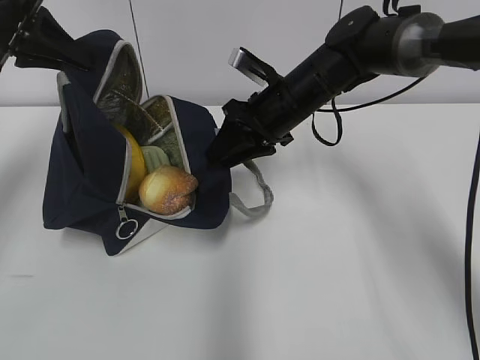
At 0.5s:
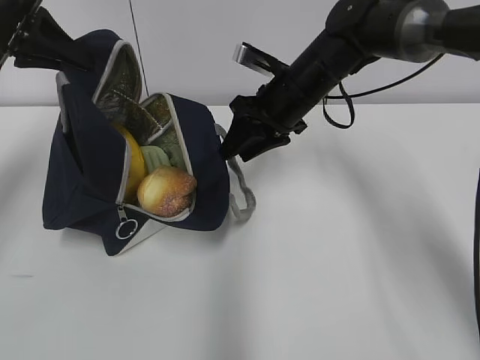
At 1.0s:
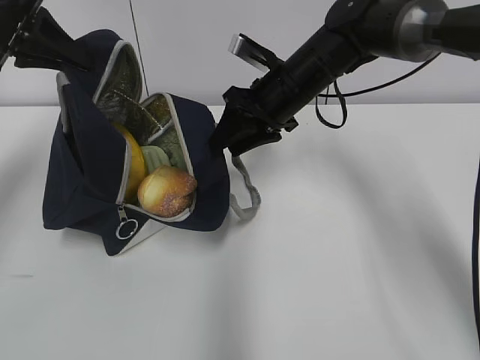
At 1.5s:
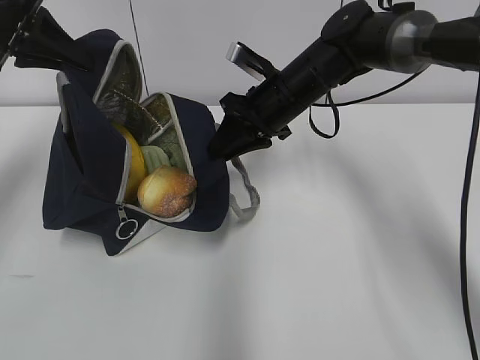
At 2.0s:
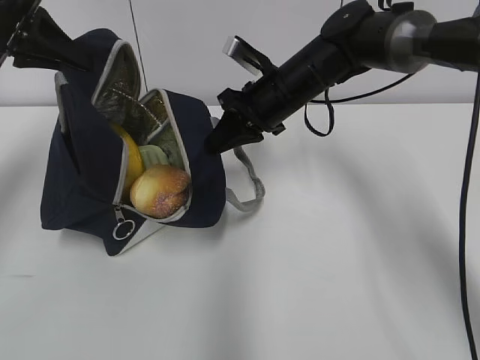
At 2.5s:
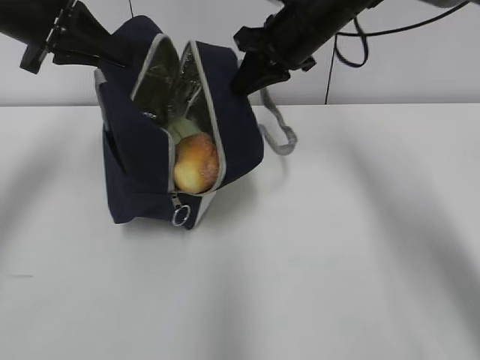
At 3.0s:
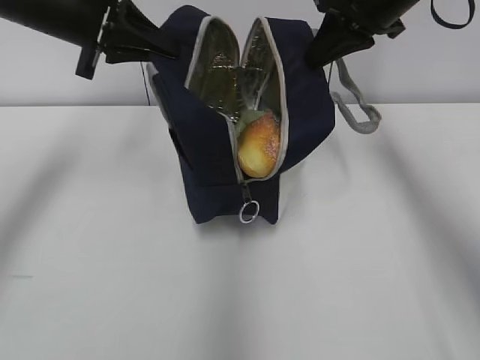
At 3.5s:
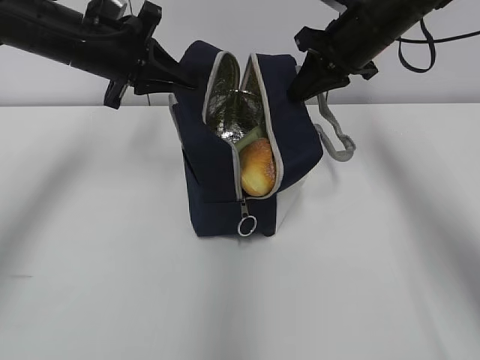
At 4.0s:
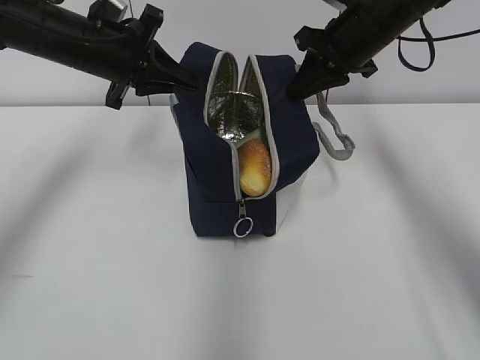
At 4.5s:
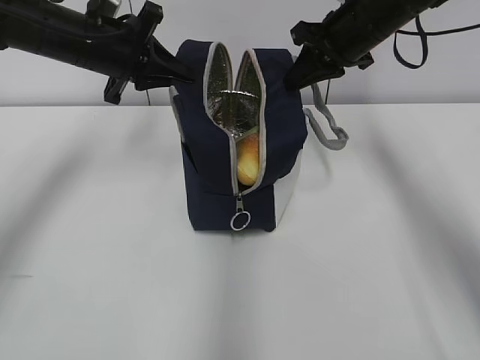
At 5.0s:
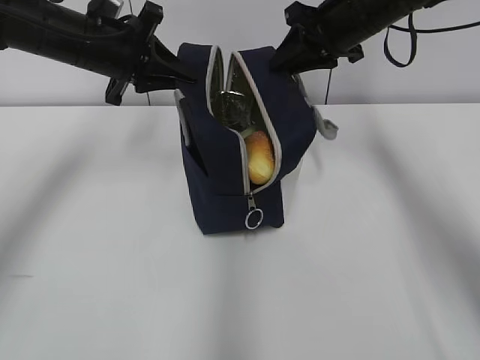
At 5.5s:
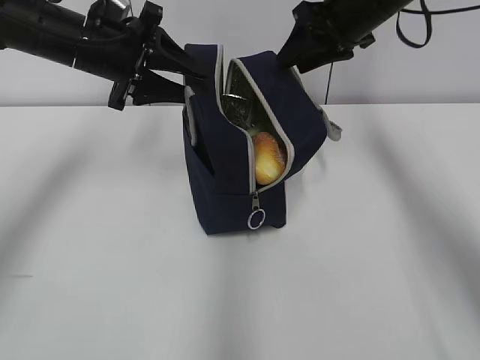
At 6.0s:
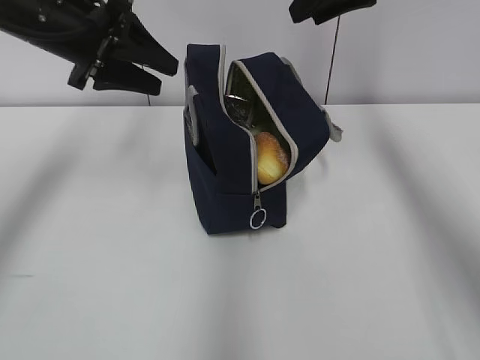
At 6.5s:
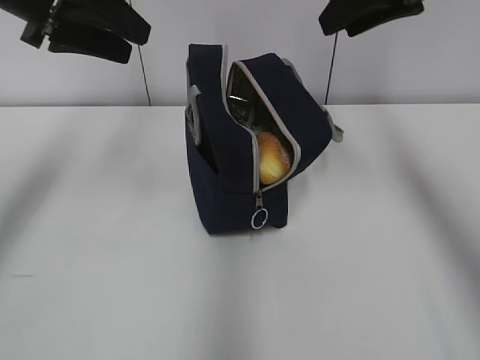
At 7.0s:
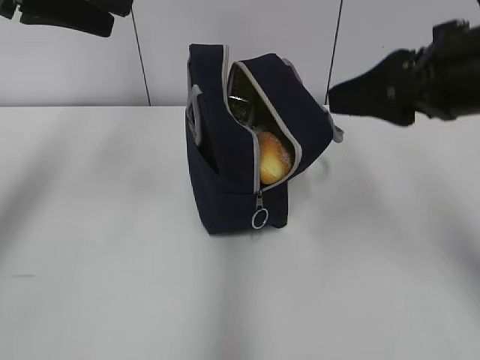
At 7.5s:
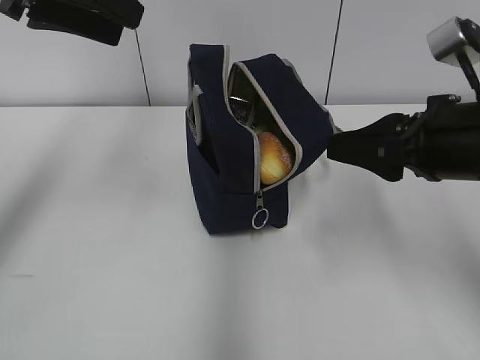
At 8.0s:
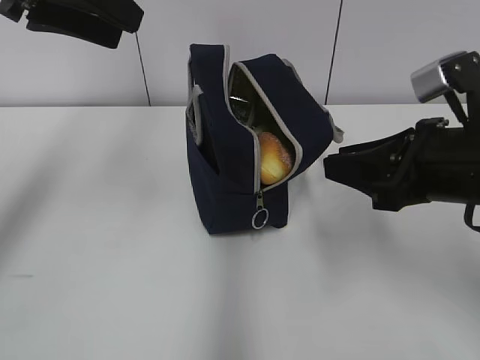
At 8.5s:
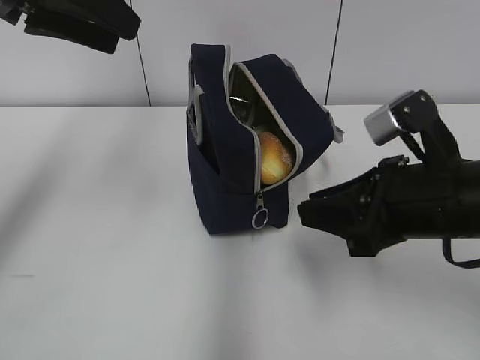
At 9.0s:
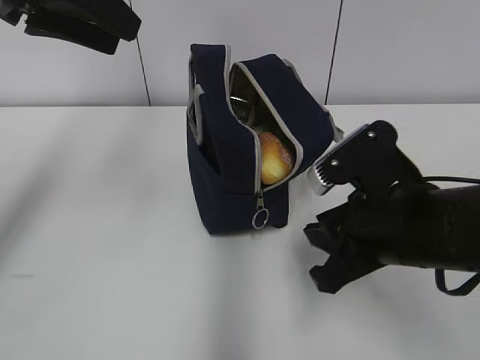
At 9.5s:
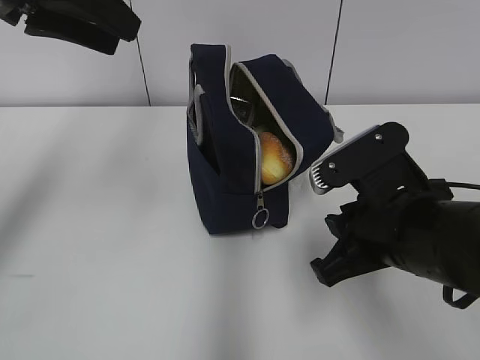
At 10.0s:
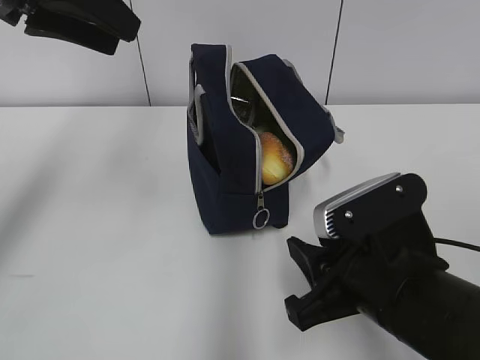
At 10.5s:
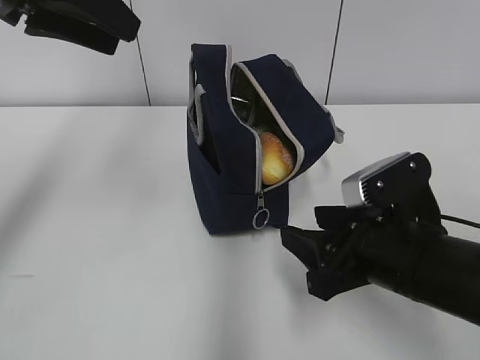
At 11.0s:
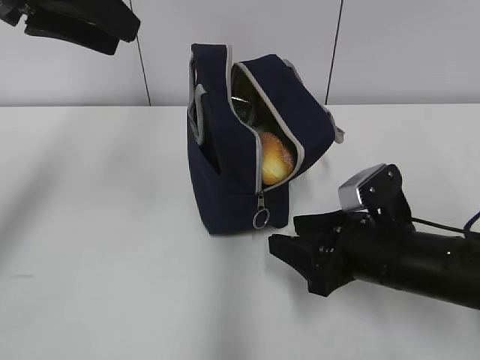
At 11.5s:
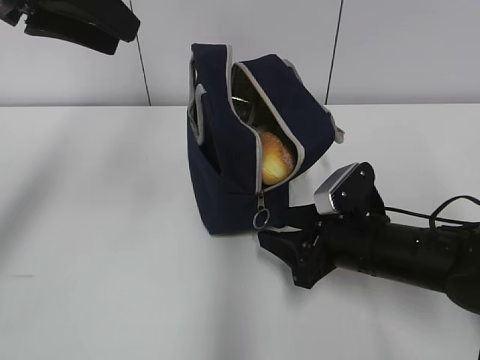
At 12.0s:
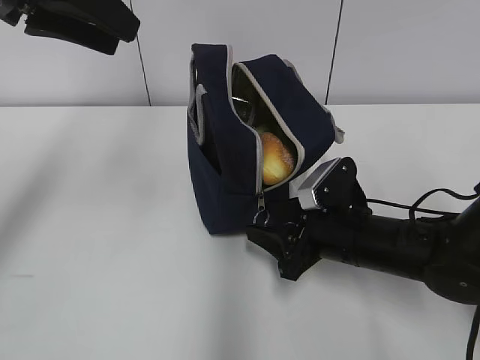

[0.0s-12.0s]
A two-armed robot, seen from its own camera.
0.0s to 2.0s: The right gripper closes its fingers.
2.0s to 4.0s: The left gripper travels to the right and downward by about 10 cm. The right gripper is displaced to the right and upward by roughly 10 cm.
4.0s to 6.0s: The right gripper travels upward by approximately 10 cm, and opens, while the left gripper opens up.
6.0s to 8.0s: The left gripper travels upward and backward by approximately 10 cm. The right gripper goes some 25 cm backward and downward.
8.0s to 10.0s: The right gripper goes approximately 10 cm to the left, backward and downward.
10.0s to 12.0s: The right gripper moves forward and downward, about 15 cm.

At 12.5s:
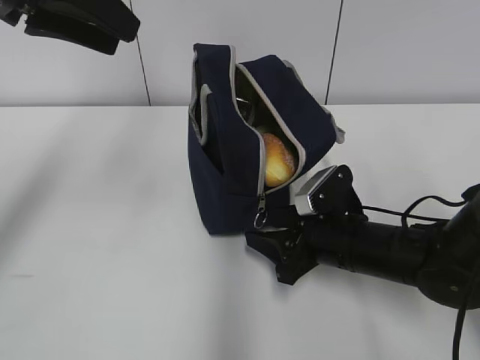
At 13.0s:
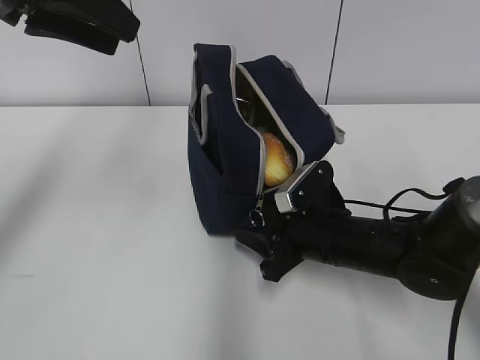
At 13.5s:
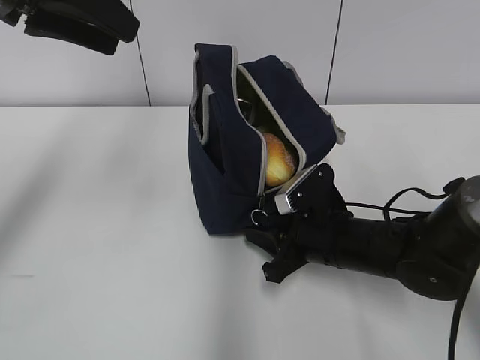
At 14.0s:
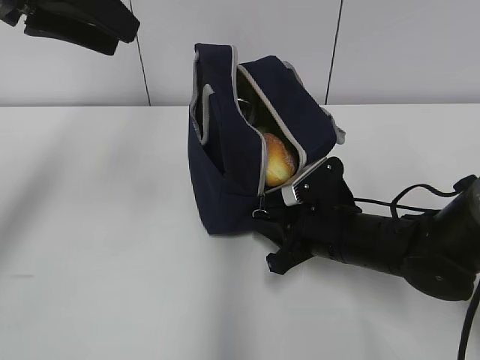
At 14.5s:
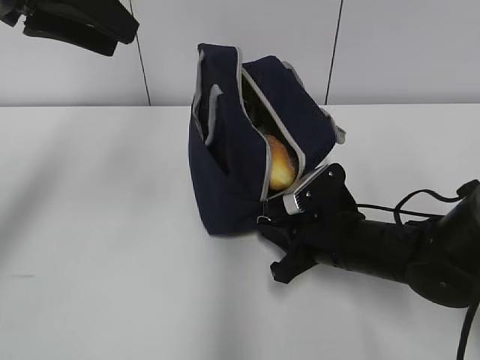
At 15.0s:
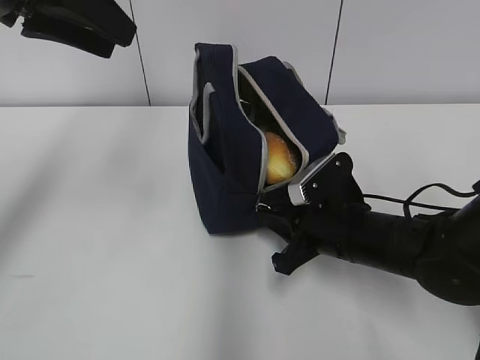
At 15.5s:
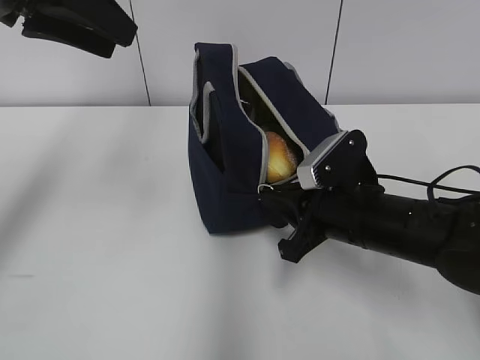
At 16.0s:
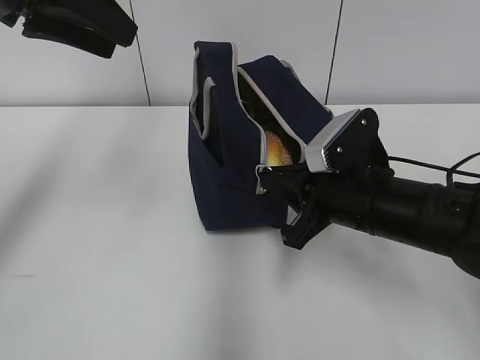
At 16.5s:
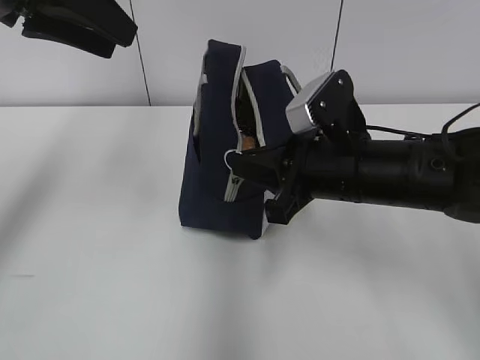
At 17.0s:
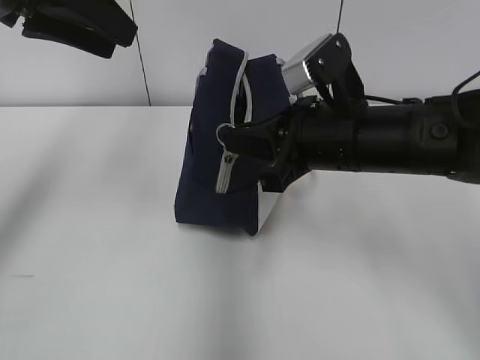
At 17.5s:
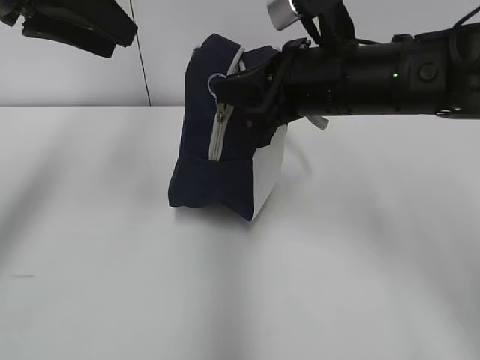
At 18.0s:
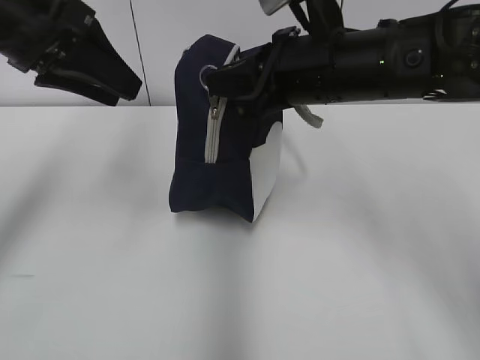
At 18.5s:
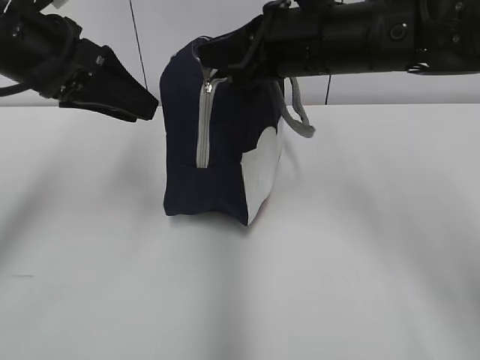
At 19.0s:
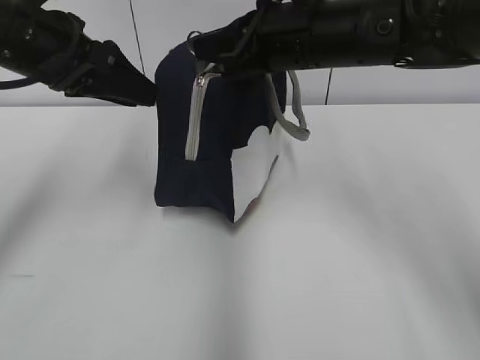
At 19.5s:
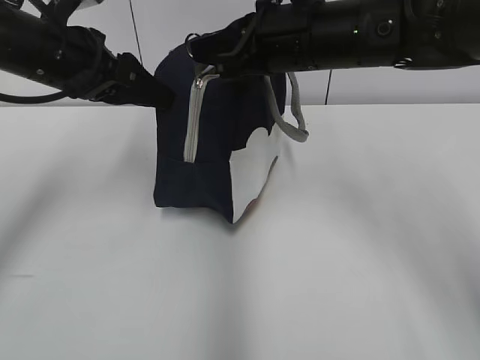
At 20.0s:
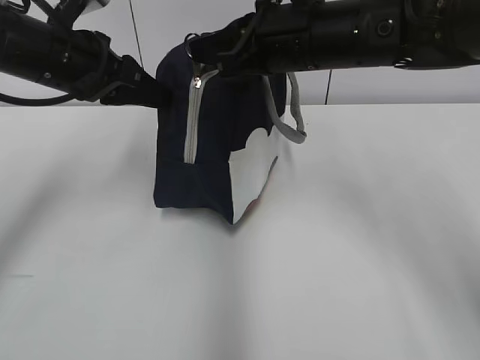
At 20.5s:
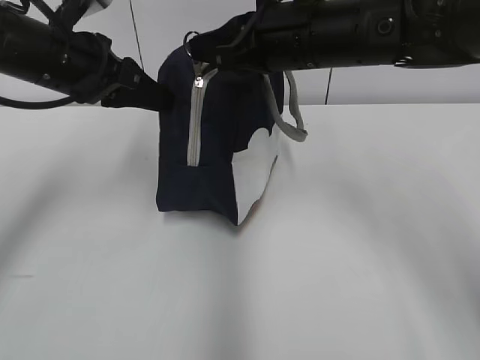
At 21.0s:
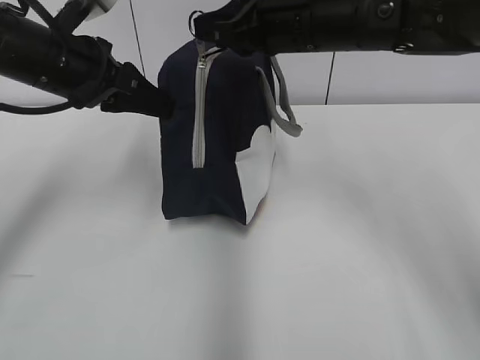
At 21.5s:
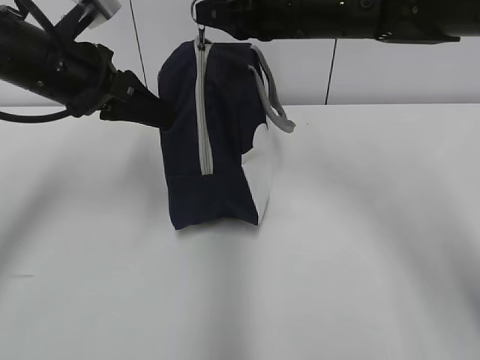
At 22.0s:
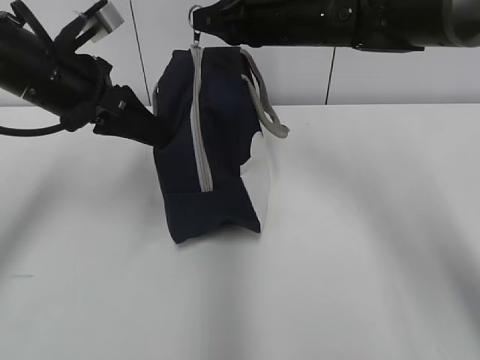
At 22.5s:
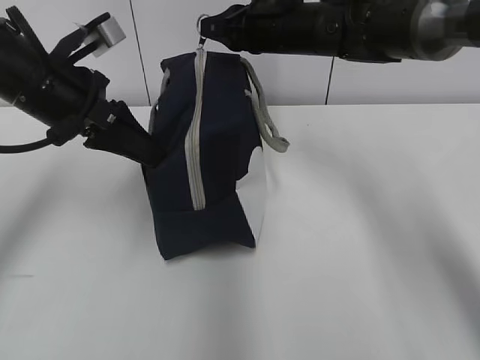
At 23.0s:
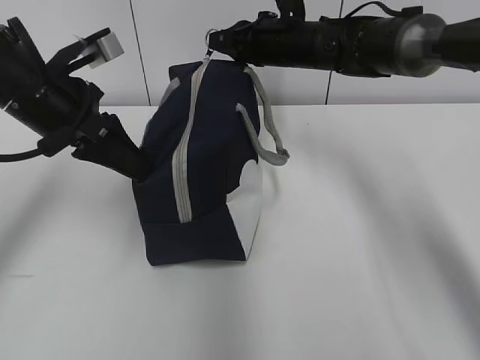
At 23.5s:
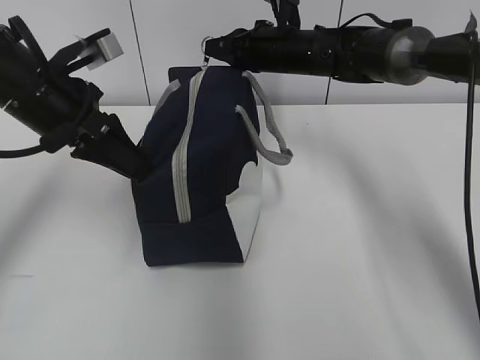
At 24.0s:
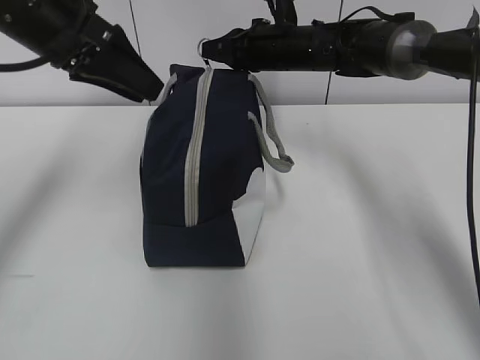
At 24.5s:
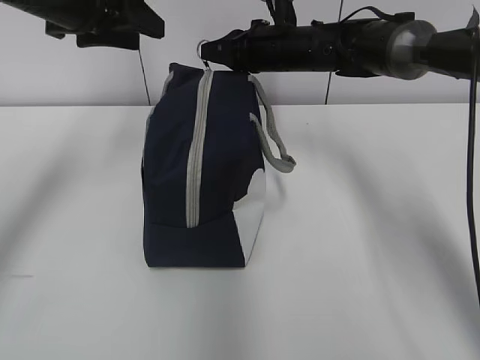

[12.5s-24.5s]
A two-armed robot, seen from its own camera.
12.5s to 14.5s: The right gripper closes its fingers.
14.5s to 16.5s: The right gripper goes roughly 10 cm upward.
16.5s to 18.5s: The right gripper heads upward and forward, covering some 10 cm. Meanwhile the left gripper goes approximately 5 cm downward.
18.5s to 20.5s: The left gripper shifts by roughly 5 cm, and closes up.
20.5s to 22.5s: The right gripper travels forward by some 10 cm.
22.5s to 24.5s: The left gripper travels upward and forward by some 10 cm, and opens. Meanwhile the right gripper ends up some 5 cm from where it was.

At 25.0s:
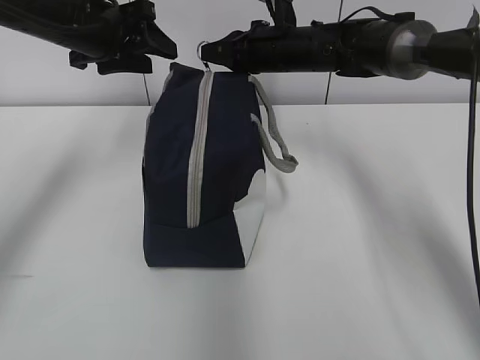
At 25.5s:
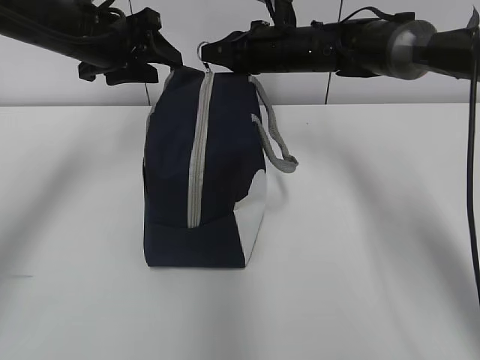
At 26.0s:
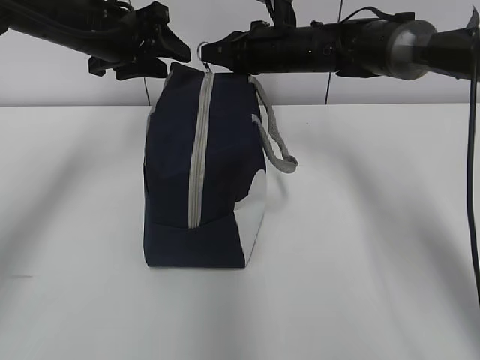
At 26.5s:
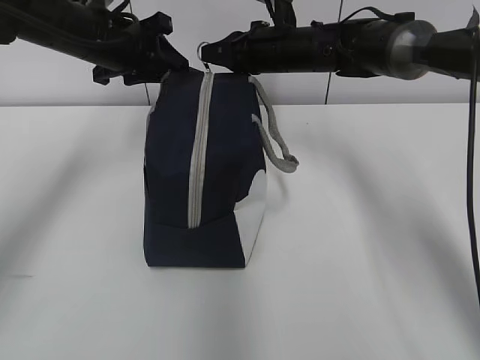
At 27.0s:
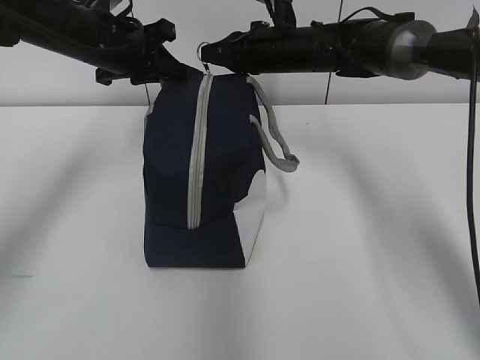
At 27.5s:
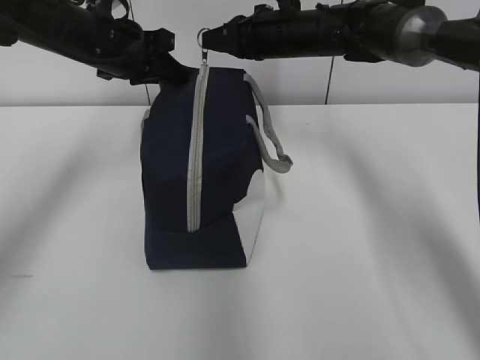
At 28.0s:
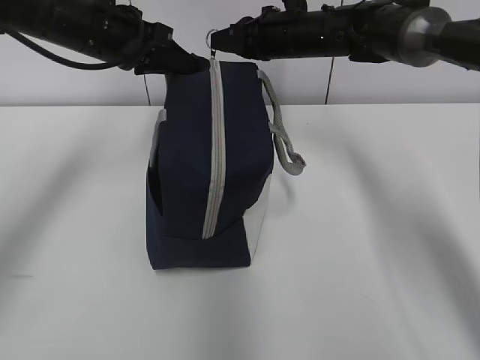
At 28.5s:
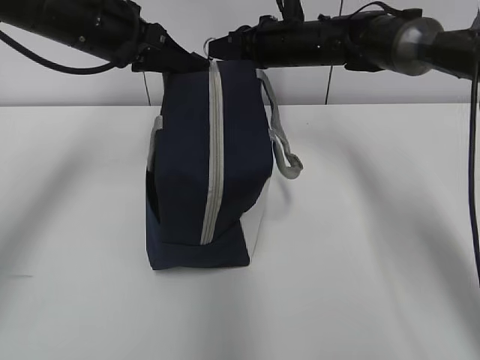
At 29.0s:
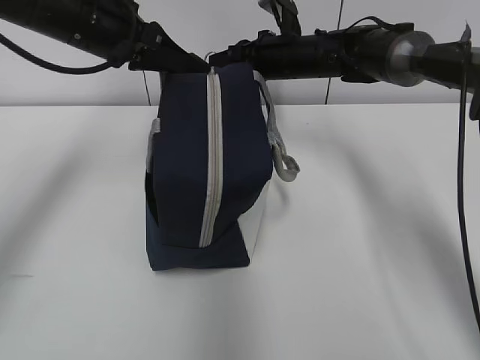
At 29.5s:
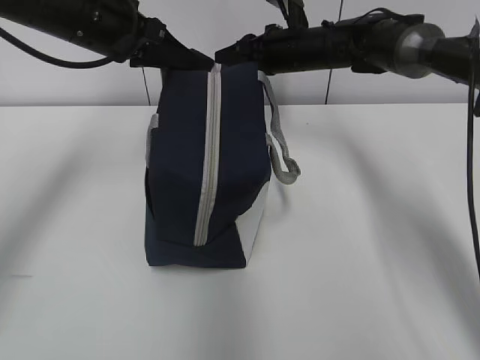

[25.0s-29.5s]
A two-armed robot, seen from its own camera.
25.0s to 27.0s: The left gripper closes up.
